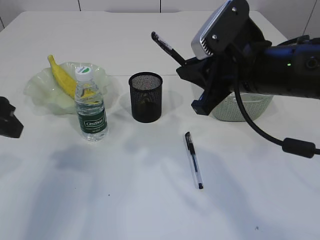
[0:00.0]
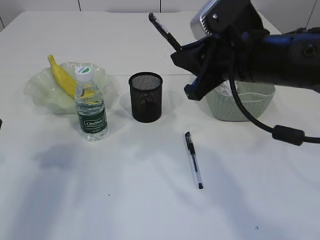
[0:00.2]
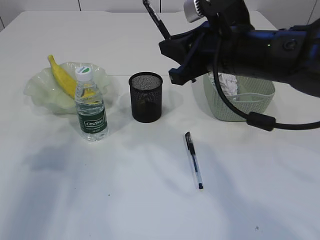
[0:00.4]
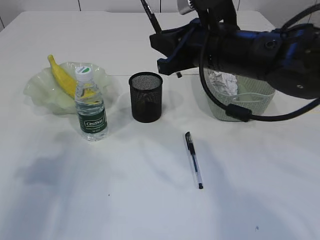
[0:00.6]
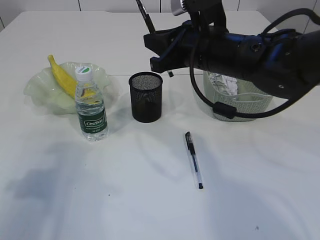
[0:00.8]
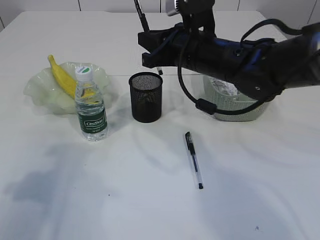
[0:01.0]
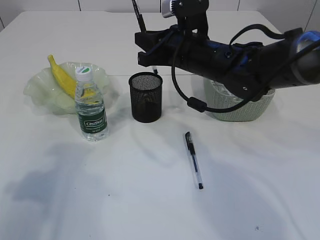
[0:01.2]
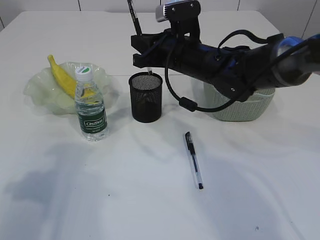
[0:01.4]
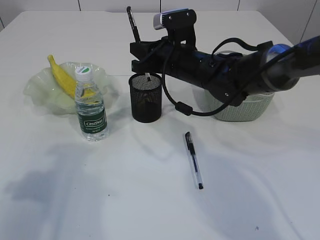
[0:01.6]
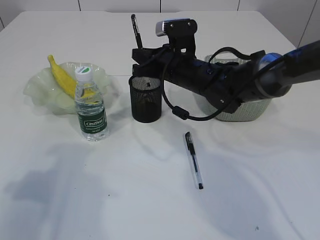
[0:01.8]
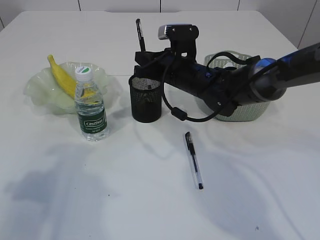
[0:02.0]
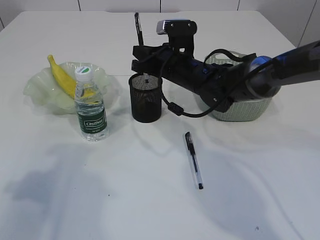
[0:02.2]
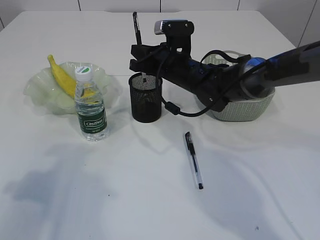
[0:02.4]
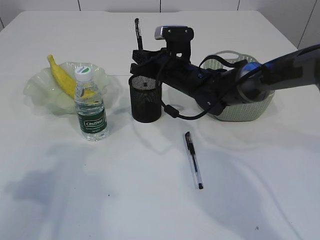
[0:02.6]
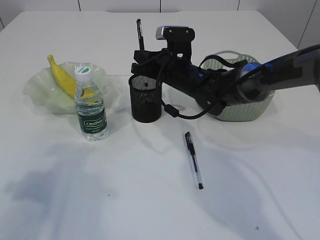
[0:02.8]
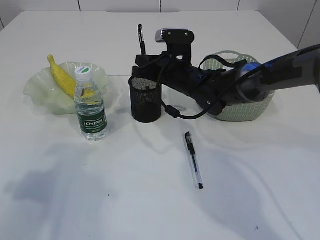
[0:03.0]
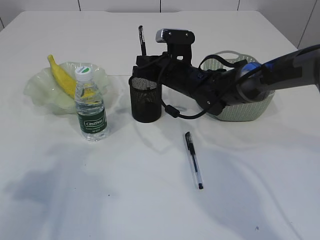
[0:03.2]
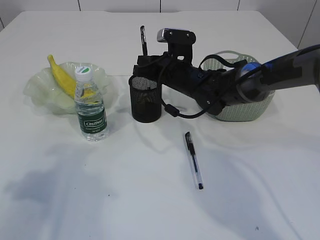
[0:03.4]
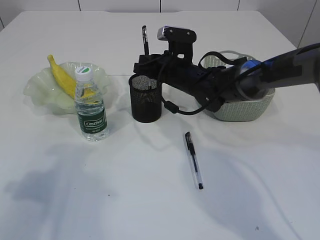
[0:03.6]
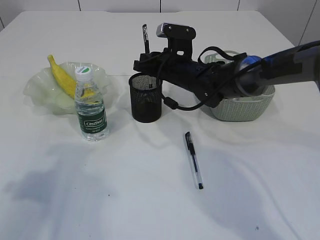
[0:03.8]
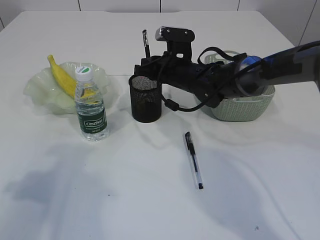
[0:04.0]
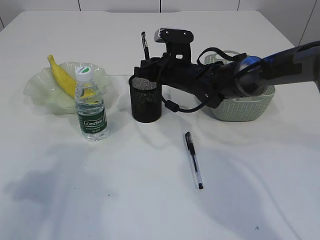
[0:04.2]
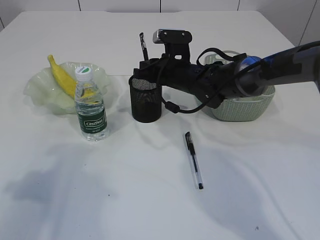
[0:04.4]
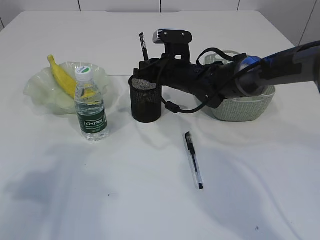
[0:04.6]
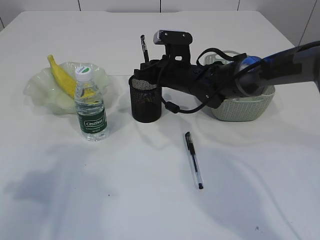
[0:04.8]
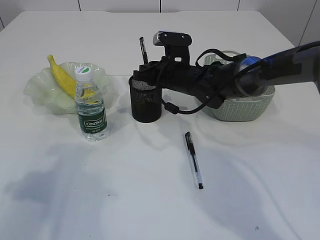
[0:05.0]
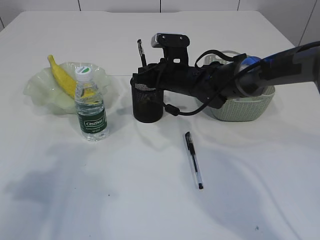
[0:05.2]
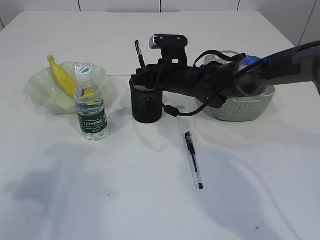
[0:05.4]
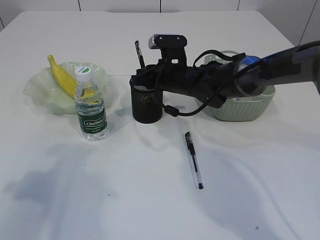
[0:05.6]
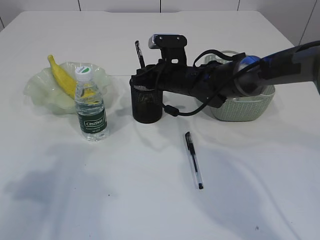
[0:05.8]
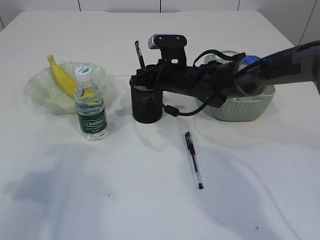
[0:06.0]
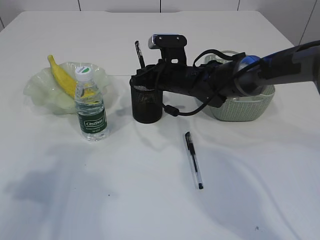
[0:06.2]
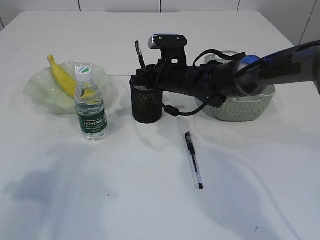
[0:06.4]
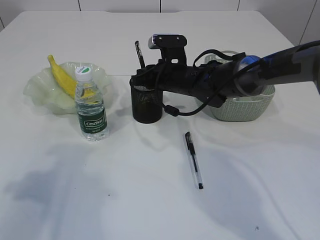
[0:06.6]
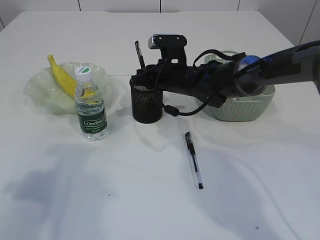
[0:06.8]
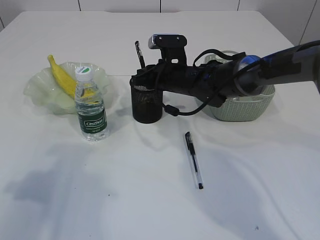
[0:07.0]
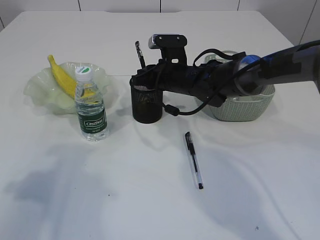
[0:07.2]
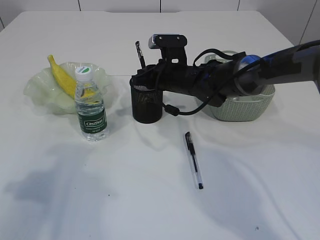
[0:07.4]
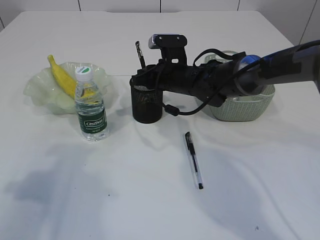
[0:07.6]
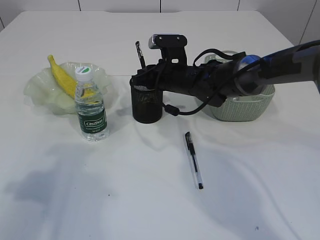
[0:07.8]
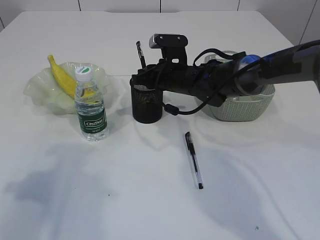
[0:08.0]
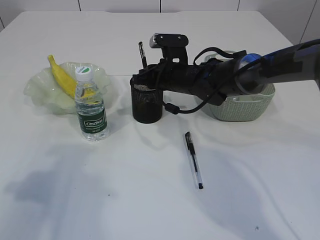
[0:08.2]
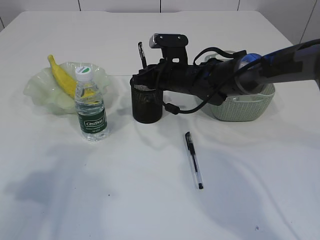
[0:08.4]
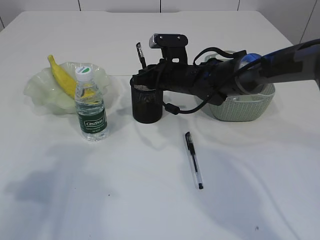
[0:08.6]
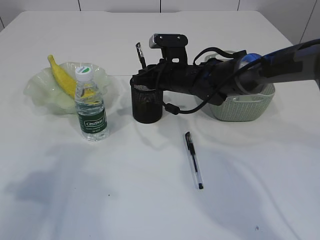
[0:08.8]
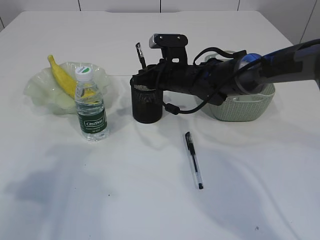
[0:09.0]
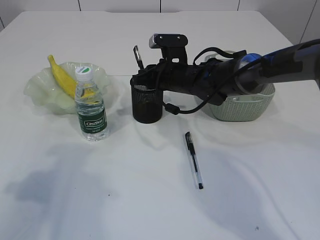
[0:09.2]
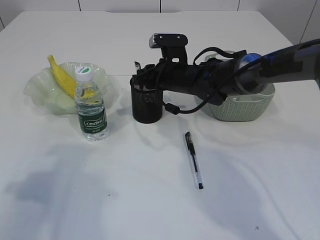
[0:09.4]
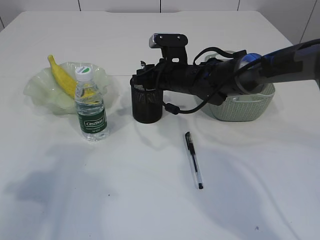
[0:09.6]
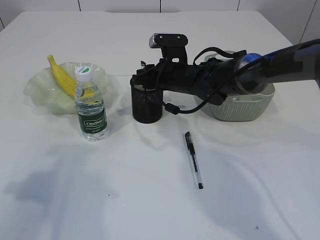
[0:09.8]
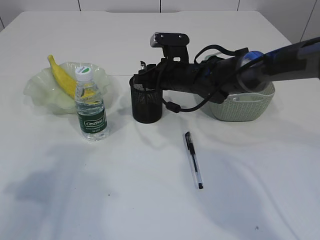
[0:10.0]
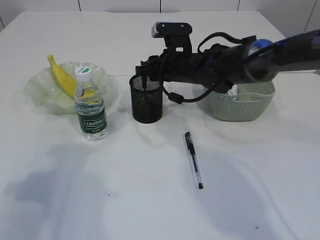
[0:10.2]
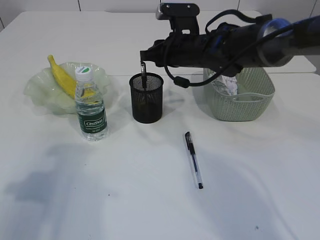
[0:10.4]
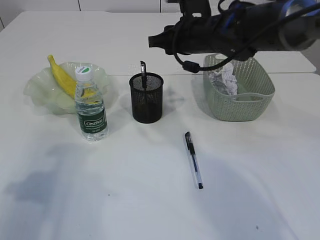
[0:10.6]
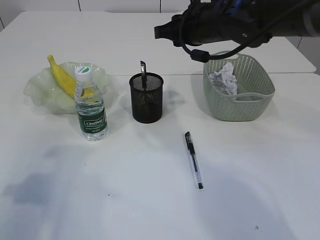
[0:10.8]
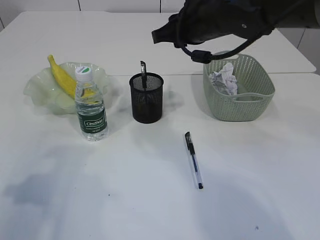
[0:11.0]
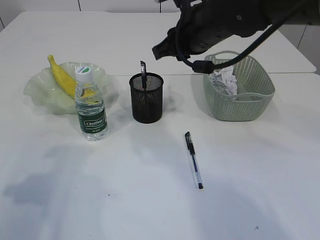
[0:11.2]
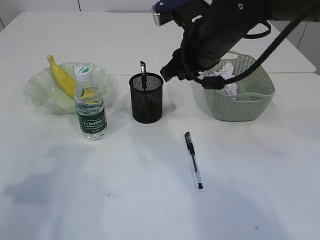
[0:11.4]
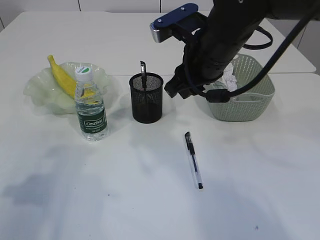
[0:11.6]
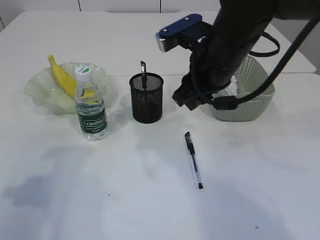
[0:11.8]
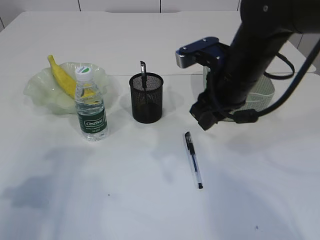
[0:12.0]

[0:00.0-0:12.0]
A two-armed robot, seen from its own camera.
Step, 0:00.0 to 0:10.6: Place the pen into the pen holder.
0:00.0 to 0:01.6: The right gripper goes roughly 15 cm forward, to the left and downward. Meanwhile the left gripper moves to the left and backward, roughly 10 cm.
0:01.6 to 0:03.0: The right gripper moves roughly 5 cm.
0:03.0 to 0:06.0: The grippers make only small movements.
0:06.0 to 0:09.0: Both grippers stay put.
0:09.0 to 0:10.4: The right gripper shifts roughly 5 cm upward.
0:10.4 to 0:12.0: The right gripper travels backward by roughly 10 cm.

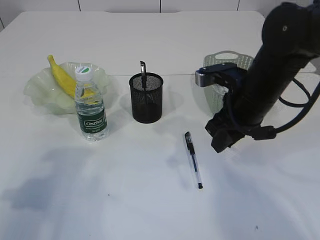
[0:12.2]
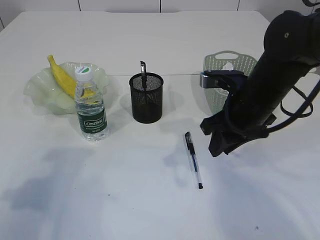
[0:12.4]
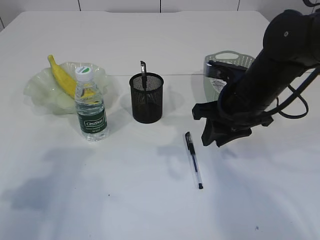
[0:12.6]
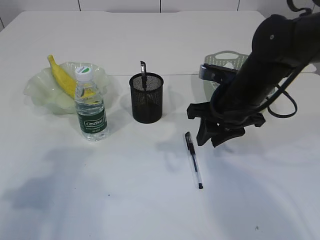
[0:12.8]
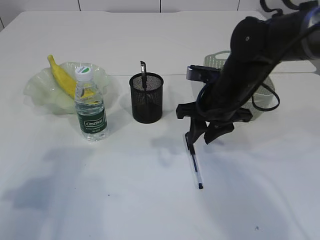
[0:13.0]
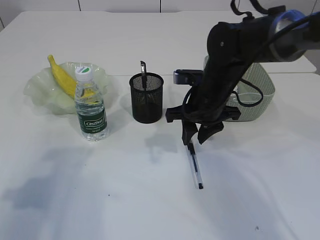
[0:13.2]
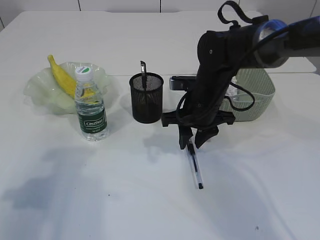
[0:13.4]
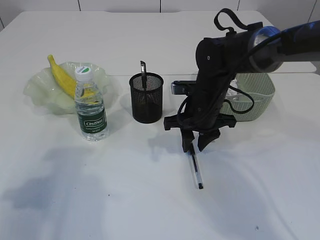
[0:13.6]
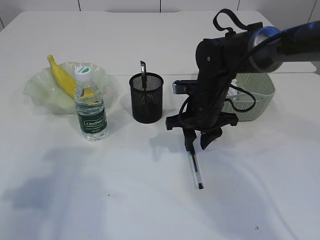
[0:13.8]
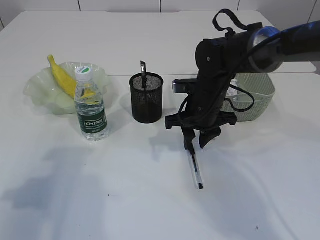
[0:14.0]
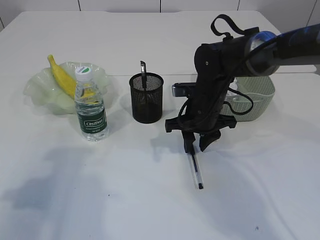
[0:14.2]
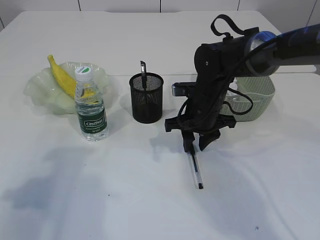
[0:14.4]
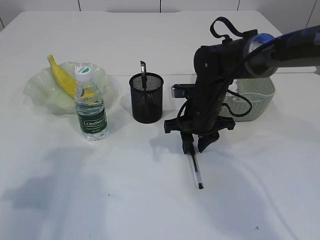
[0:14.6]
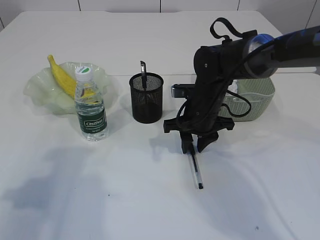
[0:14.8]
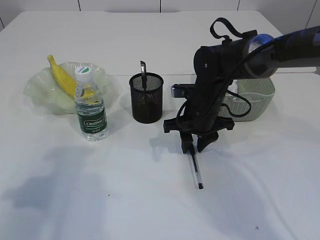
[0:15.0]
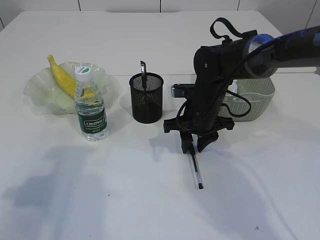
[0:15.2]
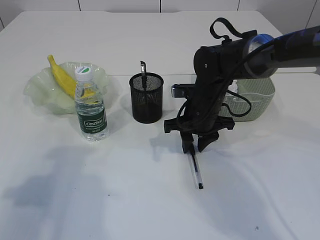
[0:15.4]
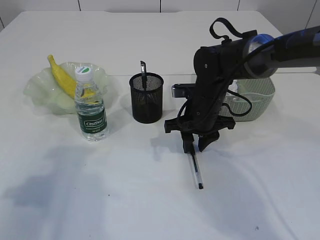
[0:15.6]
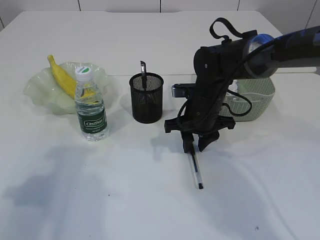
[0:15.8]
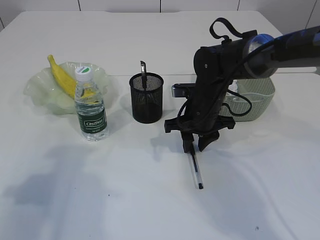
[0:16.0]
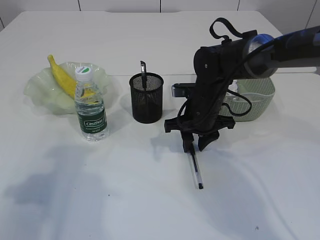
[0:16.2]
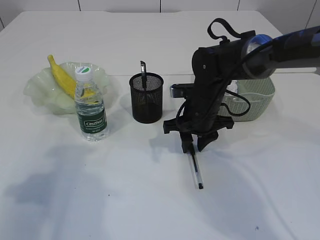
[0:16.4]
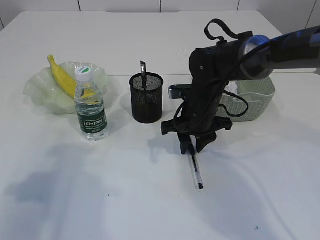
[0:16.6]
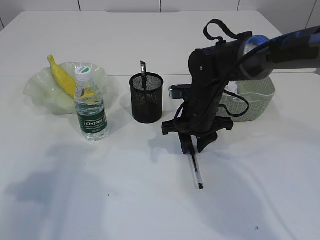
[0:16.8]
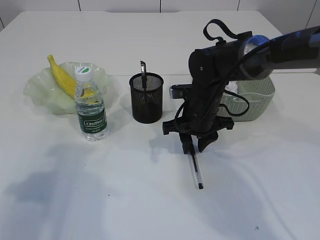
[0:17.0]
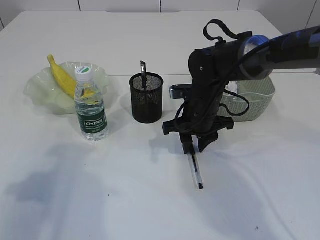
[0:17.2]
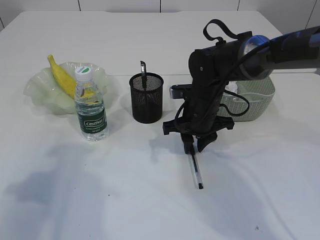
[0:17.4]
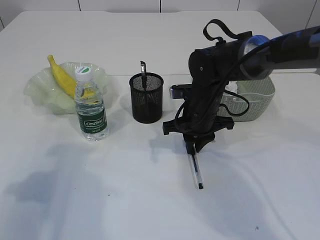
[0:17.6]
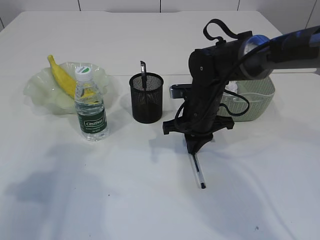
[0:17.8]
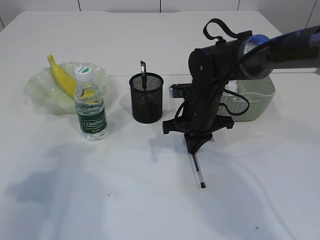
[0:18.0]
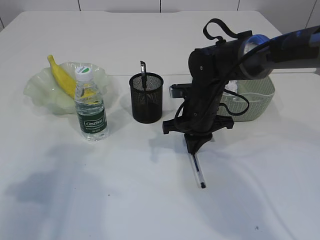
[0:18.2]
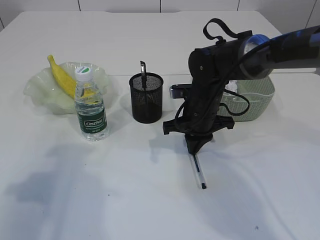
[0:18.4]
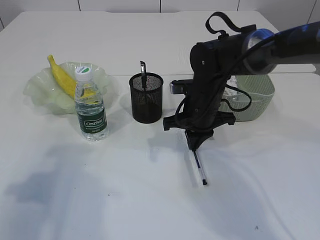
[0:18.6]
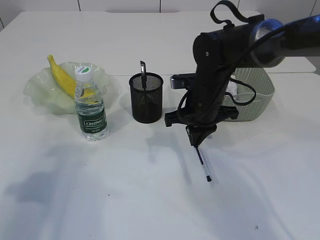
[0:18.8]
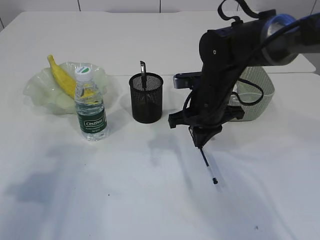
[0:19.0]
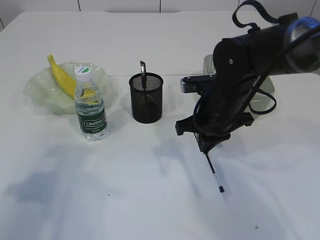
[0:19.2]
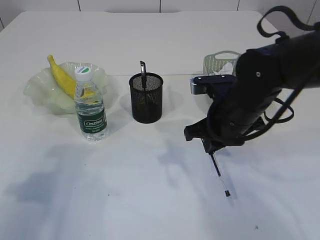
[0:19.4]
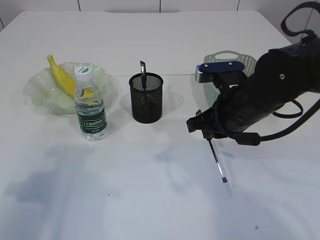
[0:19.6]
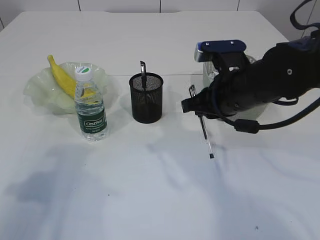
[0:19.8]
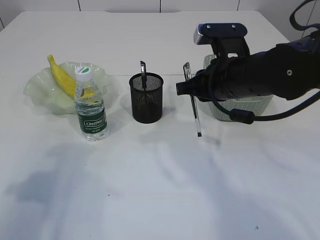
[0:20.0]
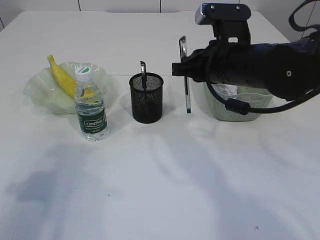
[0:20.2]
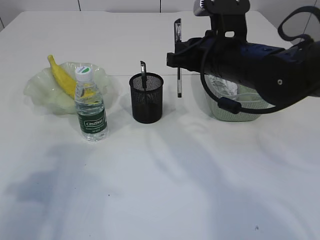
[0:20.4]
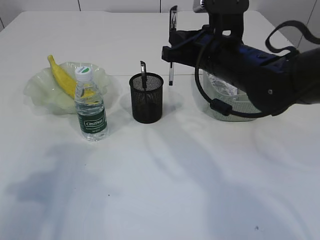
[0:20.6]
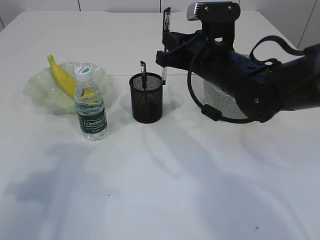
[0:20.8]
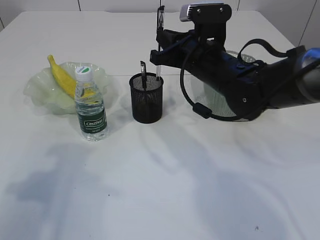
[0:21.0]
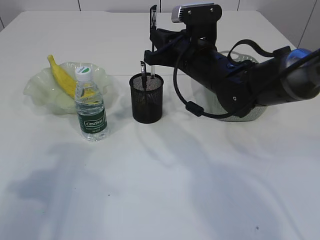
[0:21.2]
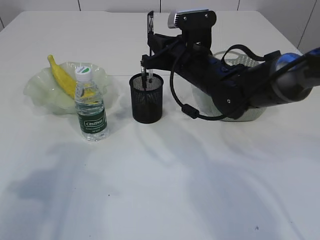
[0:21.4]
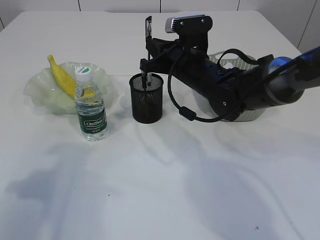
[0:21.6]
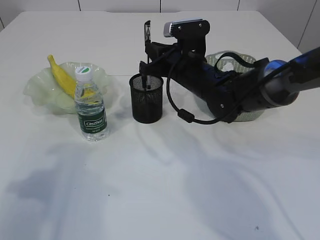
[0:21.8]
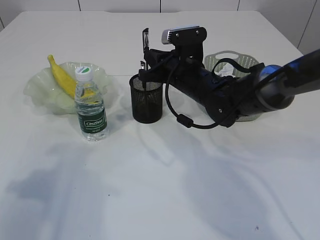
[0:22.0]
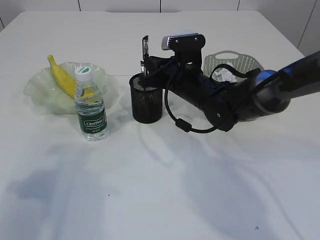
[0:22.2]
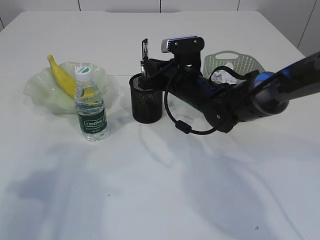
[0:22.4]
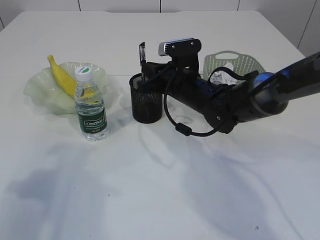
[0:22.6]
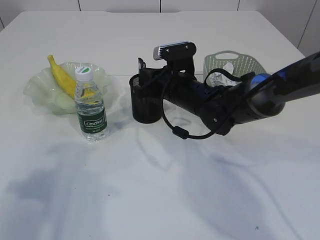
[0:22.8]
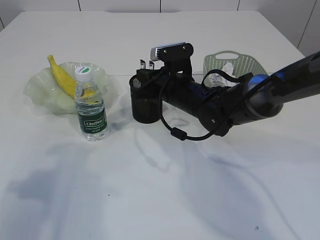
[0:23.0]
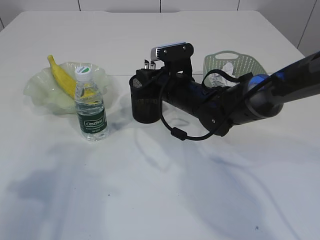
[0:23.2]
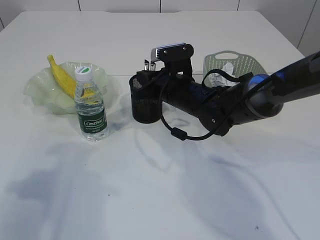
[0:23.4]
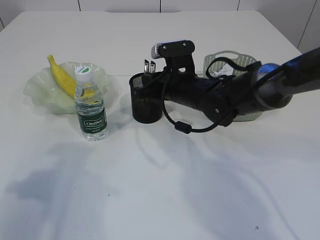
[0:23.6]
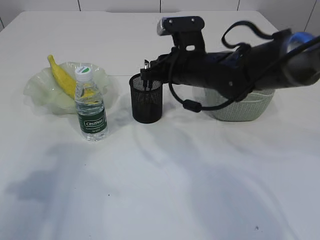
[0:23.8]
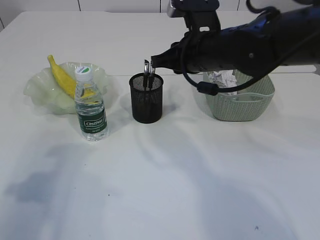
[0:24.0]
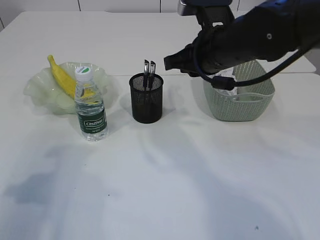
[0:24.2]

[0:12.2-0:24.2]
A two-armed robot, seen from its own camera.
Step, 0:12.2 to 0:19.0: Pick up the pen with right arm.
Step, 0:19.2 to 0:24.0: Place the pen into the pen holder.
0:12.2 to 0:13.8: The right gripper shifts approximately 10 cm downward and forward.
0:13.8 to 0:15.2: The grippers stay close to where they were, moving slightly.
0:15.2 to 0:16.6: Neither gripper changes place.
0:16.6 to 0:18.2: The right gripper closes up.
0:18.2 to 0:19.8: The right gripper moves upward and backward, approximately 10 cm.
0:19.8 to 0:21.2: The right gripper shifts approximately 10 cm forward.
0:21.2 to 0:22.6: The right gripper travels downward by some 5 cm.
0:22.6 to 0:24.2: The right gripper moves upward and backward, roughly 15 cm.
